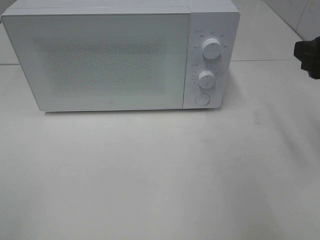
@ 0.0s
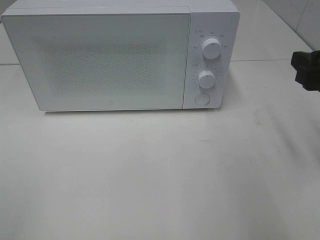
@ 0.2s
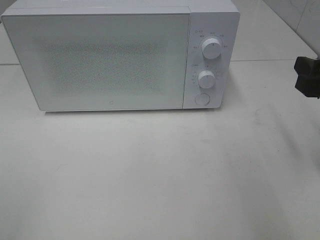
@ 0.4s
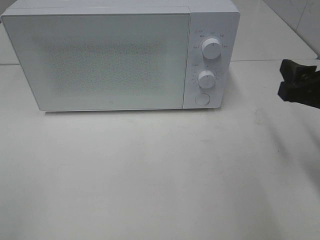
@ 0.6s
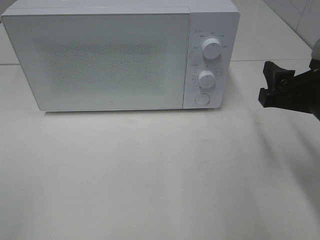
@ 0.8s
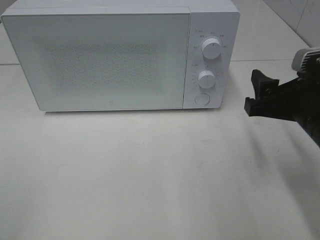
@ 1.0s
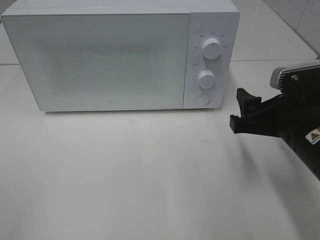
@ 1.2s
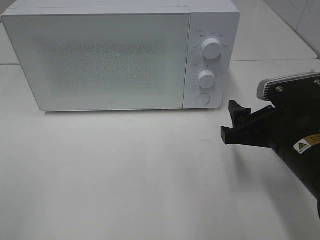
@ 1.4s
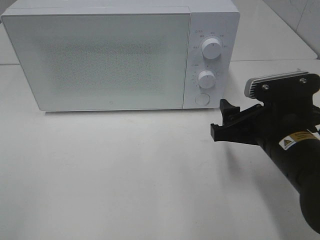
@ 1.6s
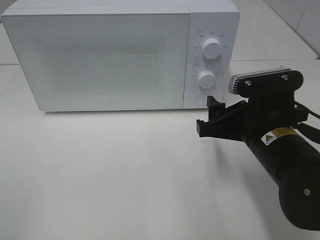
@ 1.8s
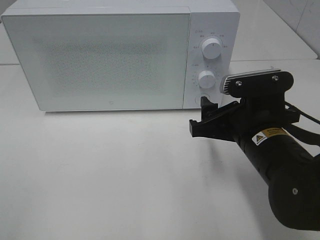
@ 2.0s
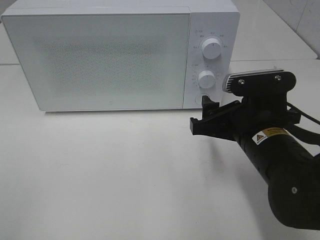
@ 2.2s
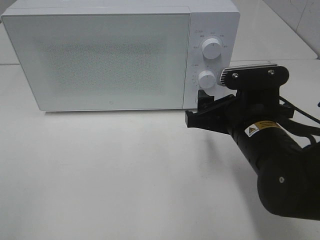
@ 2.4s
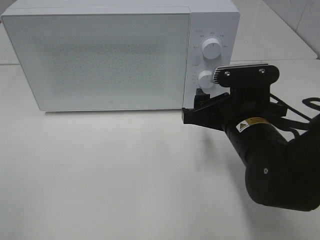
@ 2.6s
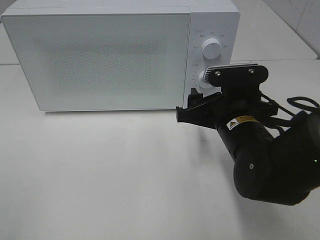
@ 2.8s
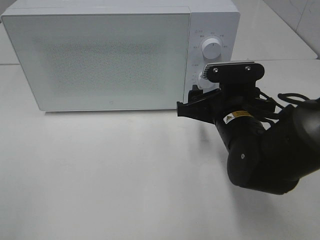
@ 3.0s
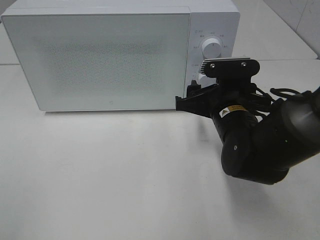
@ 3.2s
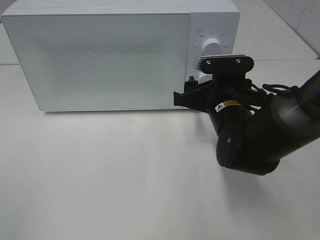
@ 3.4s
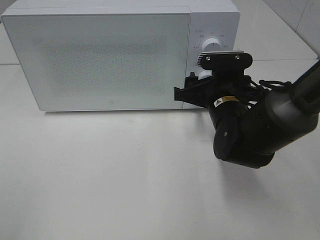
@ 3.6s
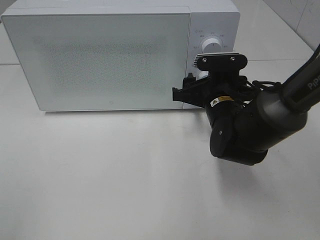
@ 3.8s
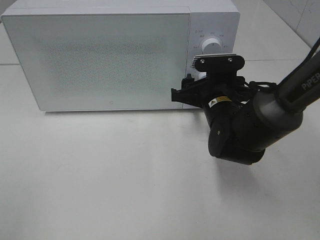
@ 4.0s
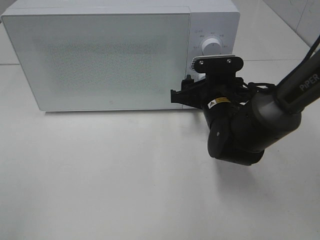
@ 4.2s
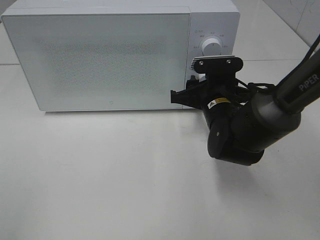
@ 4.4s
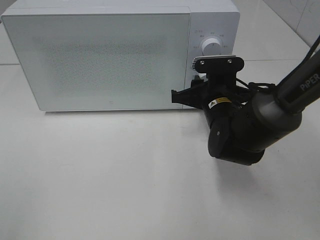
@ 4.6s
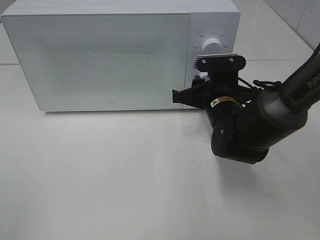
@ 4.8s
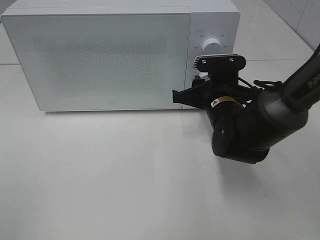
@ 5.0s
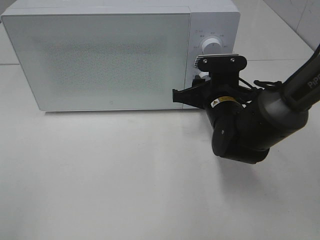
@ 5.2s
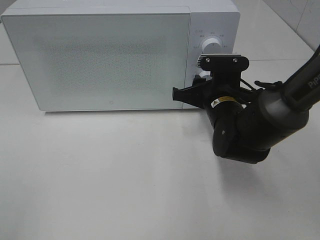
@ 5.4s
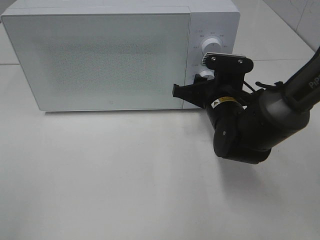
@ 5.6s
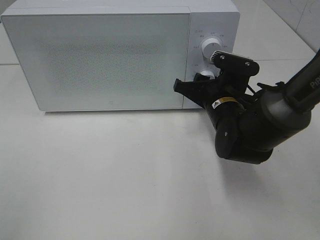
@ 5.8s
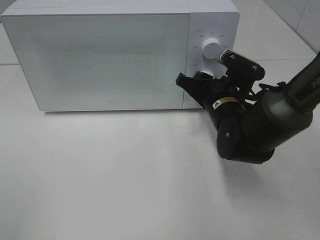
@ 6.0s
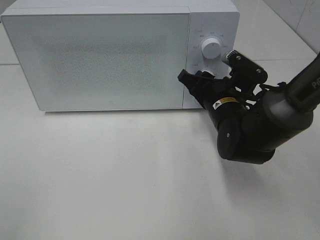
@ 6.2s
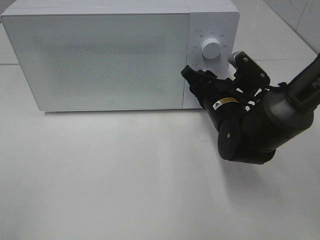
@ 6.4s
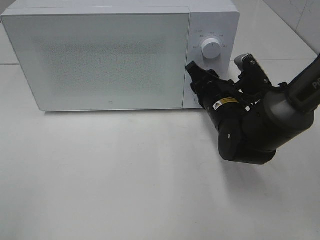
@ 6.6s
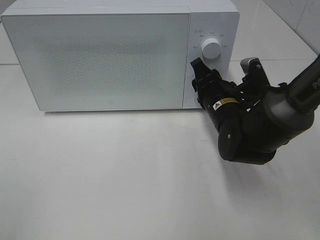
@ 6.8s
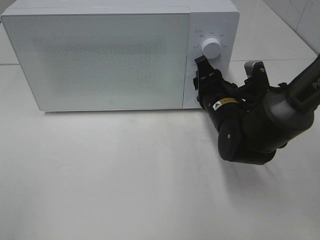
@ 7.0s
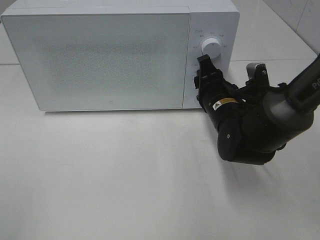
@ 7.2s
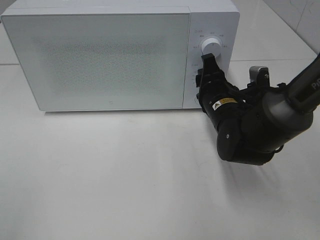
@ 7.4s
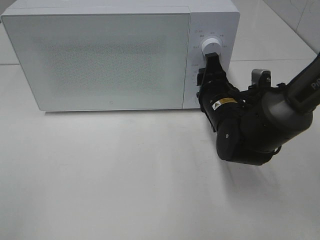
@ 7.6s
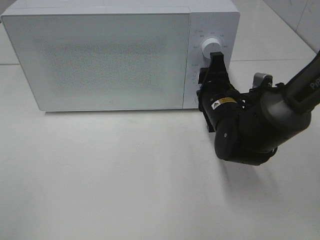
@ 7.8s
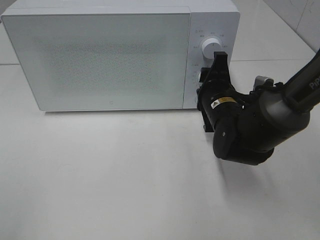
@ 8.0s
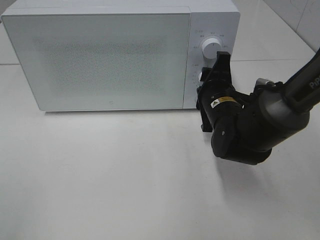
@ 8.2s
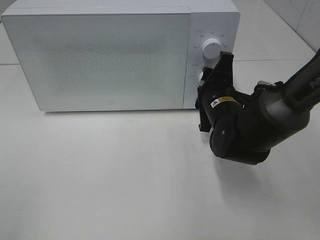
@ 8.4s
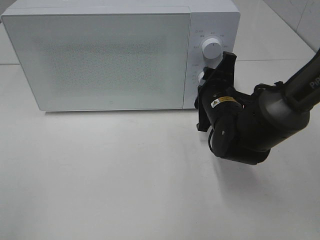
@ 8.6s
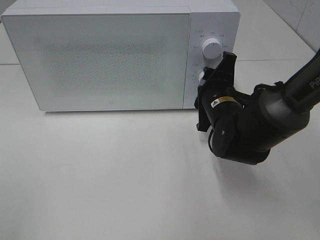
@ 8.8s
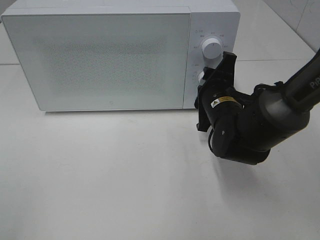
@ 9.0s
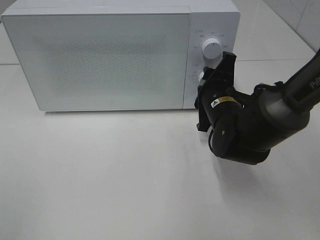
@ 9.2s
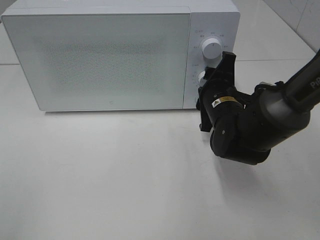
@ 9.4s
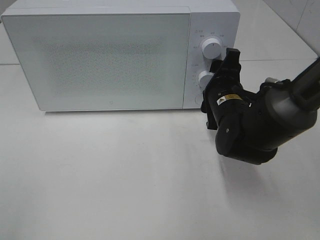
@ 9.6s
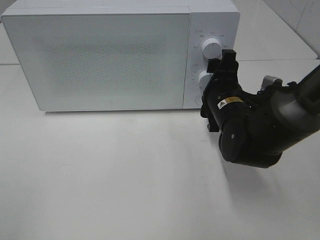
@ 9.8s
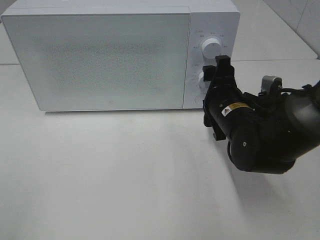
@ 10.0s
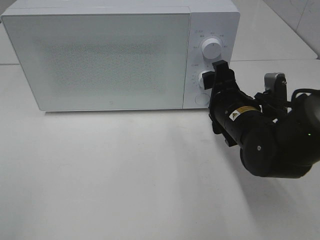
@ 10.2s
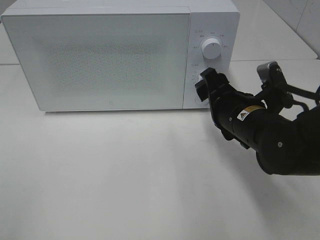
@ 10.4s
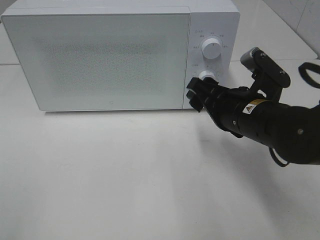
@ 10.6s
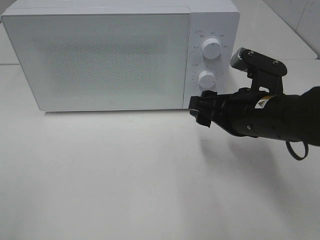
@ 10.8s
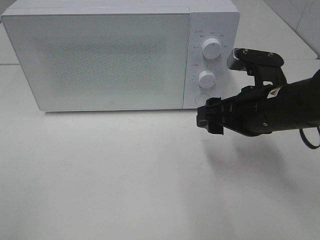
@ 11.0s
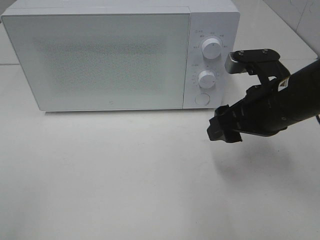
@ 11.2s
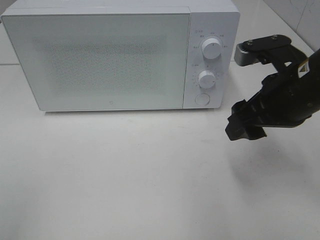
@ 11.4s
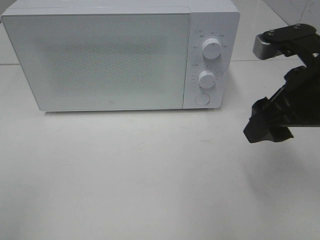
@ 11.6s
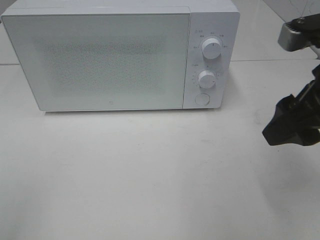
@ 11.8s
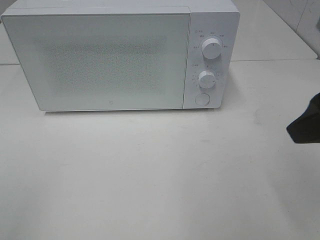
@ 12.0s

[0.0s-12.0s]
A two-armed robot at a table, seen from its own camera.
Task of the whole recording: Heat the burger.
Step, 0.0s to 9.8s: Right hand: twist timer button.
0.0s to 1.6s: The right gripper moves downward and to the left, some 15 cm.
1.6s to 3.0s: The right gripper moves forward, approximately 5 cm.
3.0s to 4.4s: The right gripper goes roughly 5 cm forward.
9.0s to 10.4s: The right gripper travels backward by about 5 cm.
10.4s to 12.0s: The right gripper moves upward, backward and to the right, roughly 20 cm.

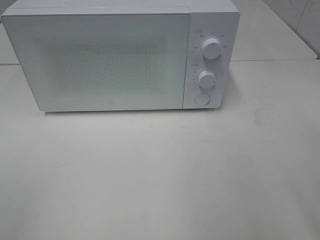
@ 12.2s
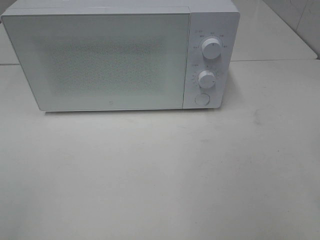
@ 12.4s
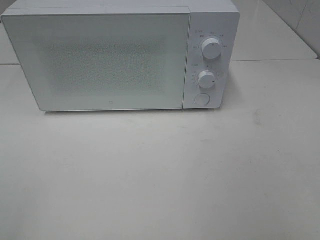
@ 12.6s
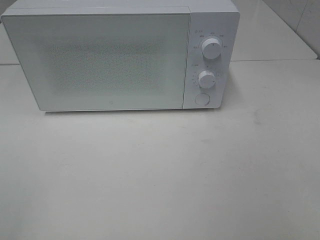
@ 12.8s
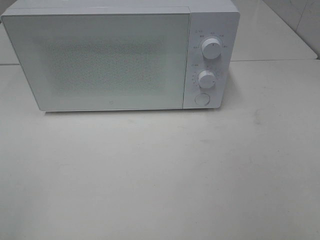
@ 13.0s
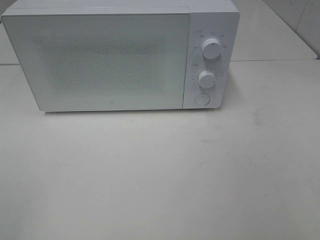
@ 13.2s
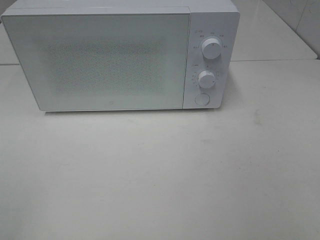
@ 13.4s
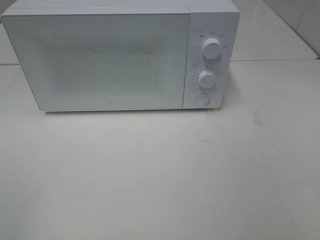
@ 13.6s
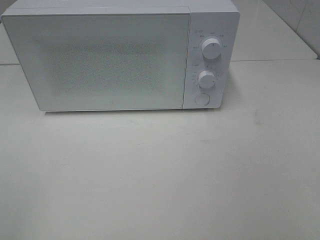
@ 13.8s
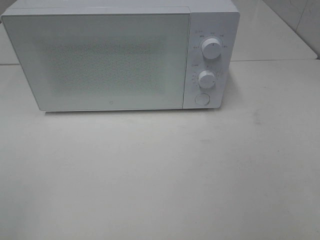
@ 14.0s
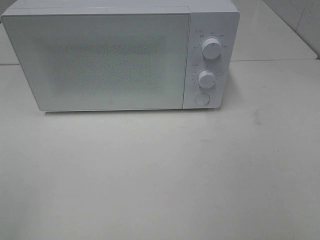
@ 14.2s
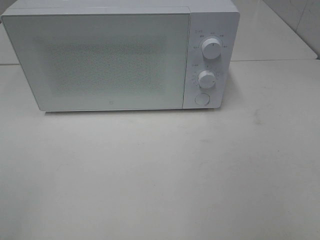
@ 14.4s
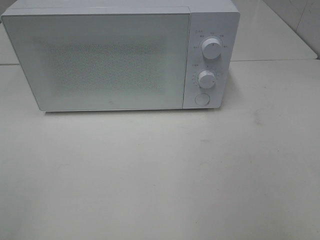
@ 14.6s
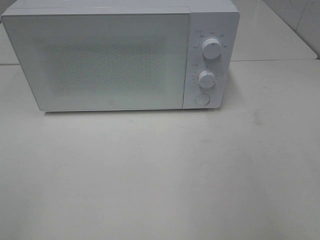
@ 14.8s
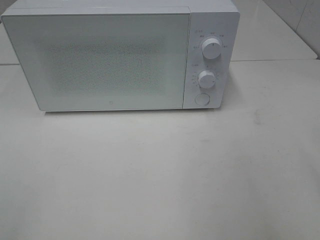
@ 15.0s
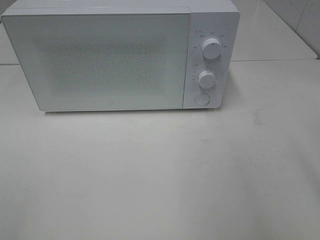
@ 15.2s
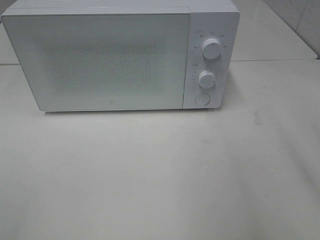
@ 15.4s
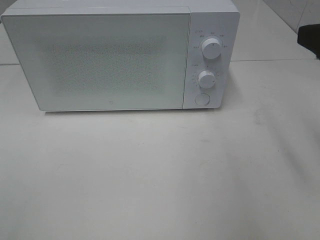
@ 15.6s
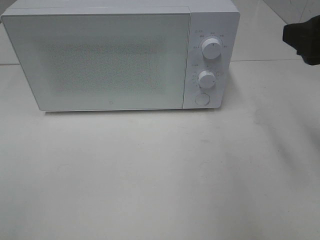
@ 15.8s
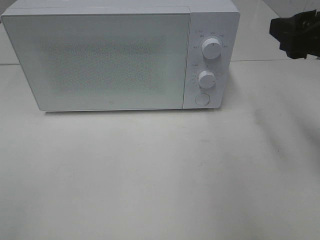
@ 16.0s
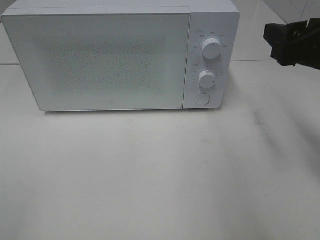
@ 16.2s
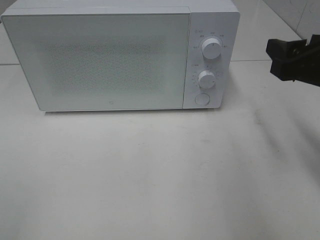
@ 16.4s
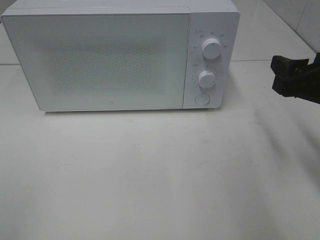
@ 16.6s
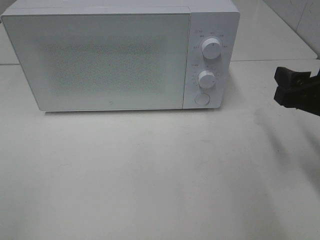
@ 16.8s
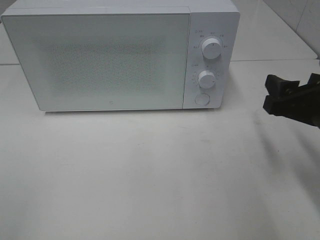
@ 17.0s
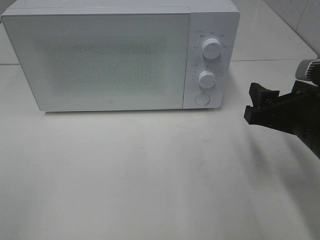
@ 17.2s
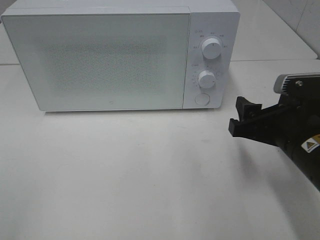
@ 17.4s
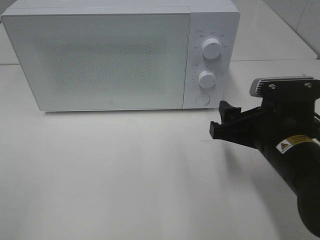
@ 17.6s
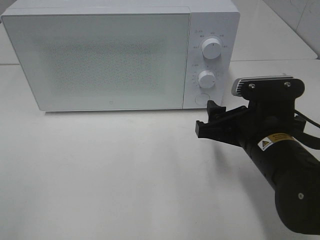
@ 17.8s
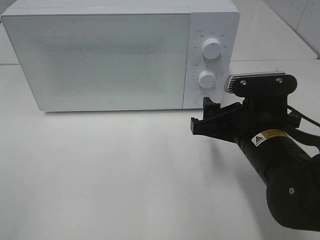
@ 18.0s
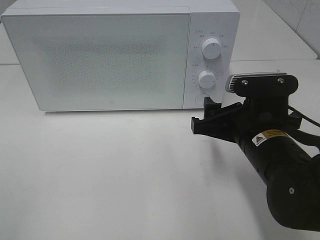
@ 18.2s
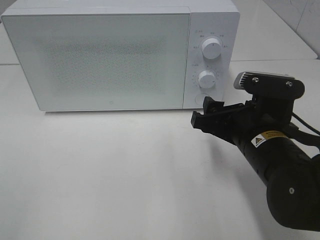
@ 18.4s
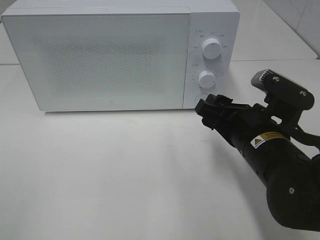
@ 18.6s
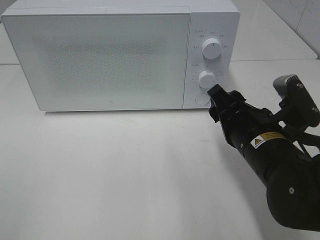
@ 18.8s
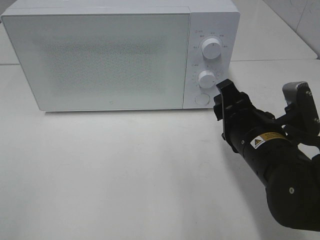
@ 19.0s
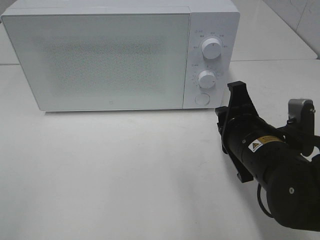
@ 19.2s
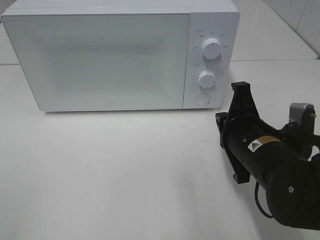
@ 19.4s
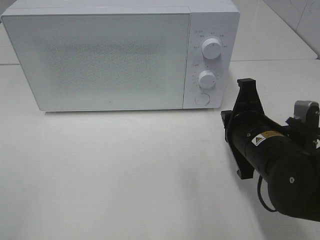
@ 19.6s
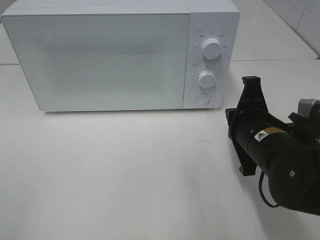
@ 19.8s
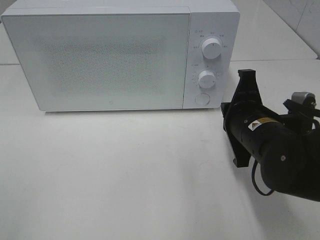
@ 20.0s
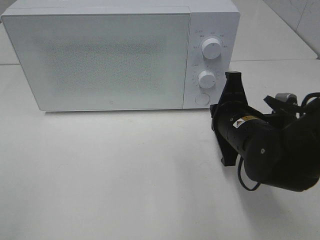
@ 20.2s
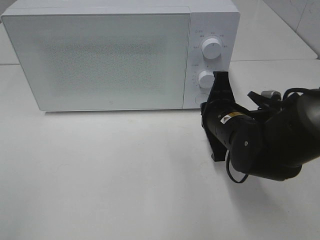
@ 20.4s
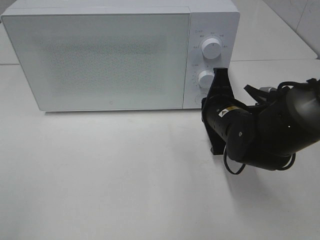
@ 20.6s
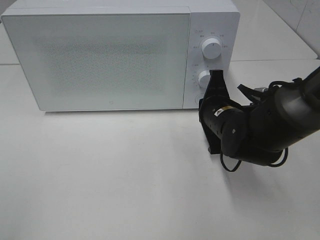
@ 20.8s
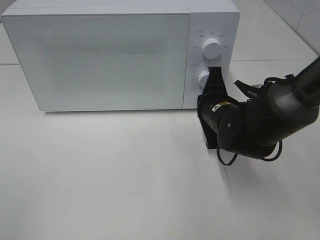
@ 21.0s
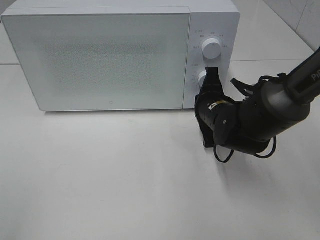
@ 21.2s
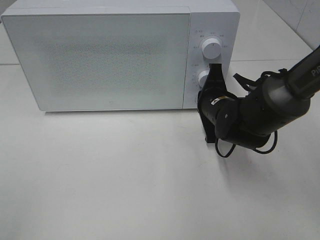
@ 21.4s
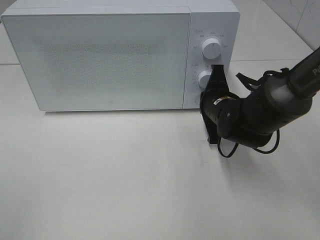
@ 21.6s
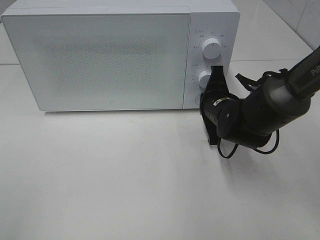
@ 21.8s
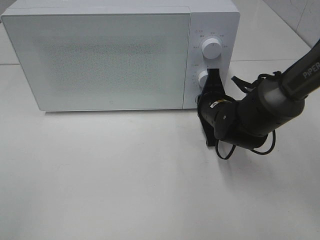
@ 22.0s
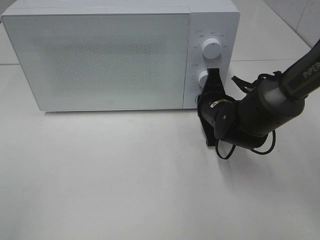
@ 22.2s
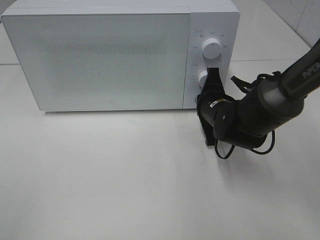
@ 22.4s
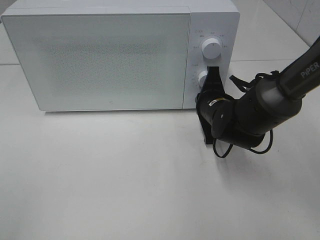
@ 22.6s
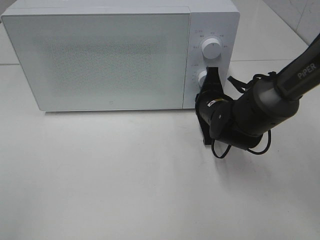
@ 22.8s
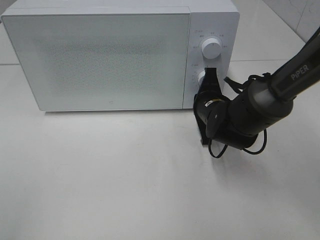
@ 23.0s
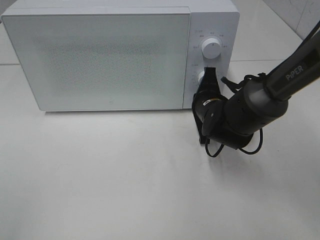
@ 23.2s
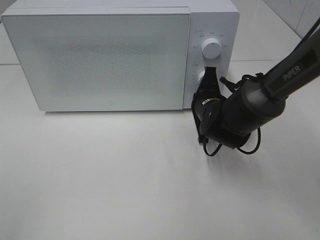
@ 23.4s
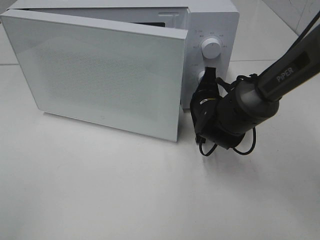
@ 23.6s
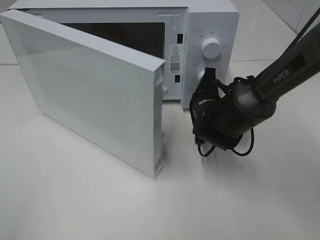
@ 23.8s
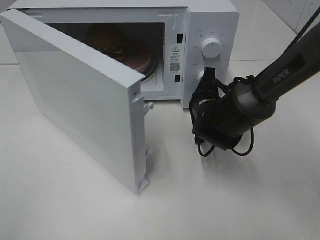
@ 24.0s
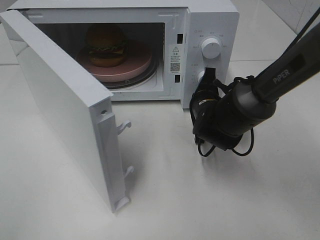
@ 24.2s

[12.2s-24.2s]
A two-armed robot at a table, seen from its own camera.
Task of the whole recording: Heat the burger.
15.2s to 16.6s: The right gripper is displaced downward and forward by some 15 cm.
16.6s to 18.2s: The right gripper shifts roughly 10 cm to the left and downward.
18.2s to 19.8s: The right gripper closes up.
19.8s to 21.2s: The right gripper goes roughly 10 cm forward.
21.2s to 22.6s: The grippers stay close to where they were, moving slightly.
